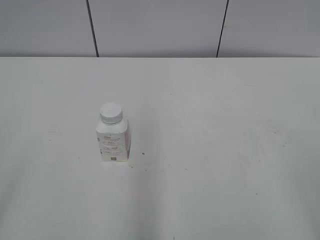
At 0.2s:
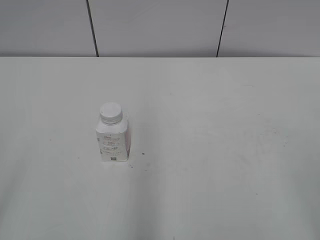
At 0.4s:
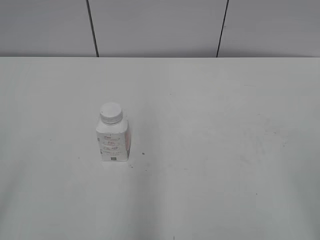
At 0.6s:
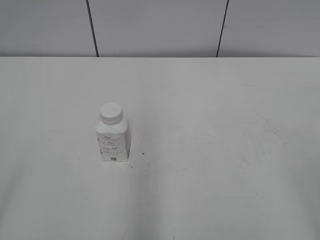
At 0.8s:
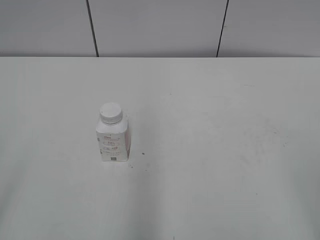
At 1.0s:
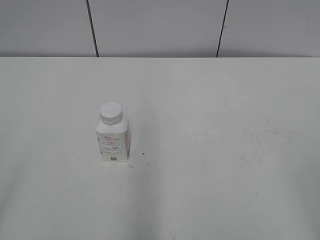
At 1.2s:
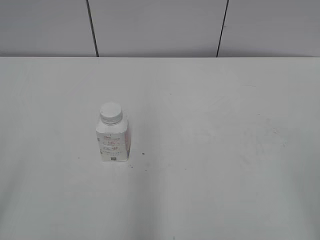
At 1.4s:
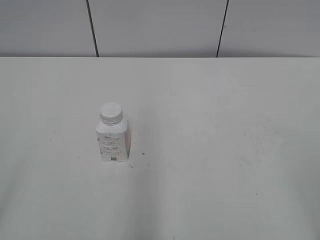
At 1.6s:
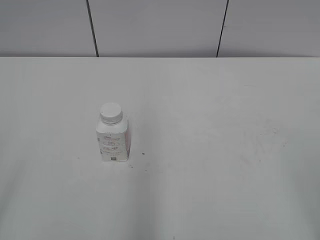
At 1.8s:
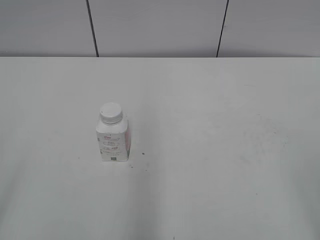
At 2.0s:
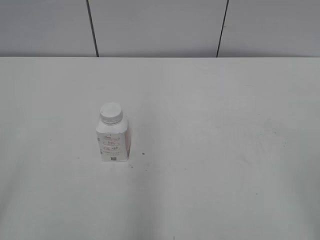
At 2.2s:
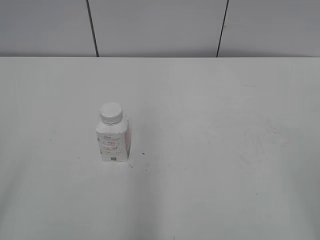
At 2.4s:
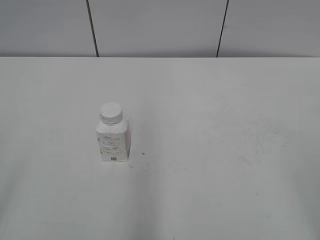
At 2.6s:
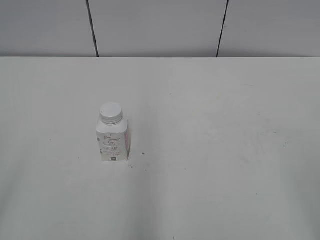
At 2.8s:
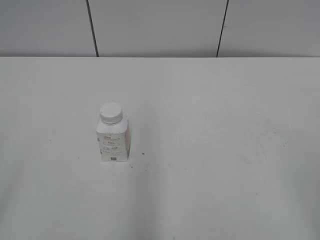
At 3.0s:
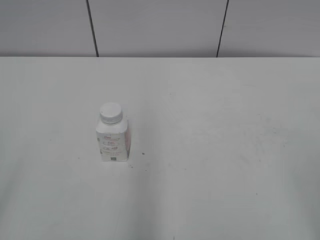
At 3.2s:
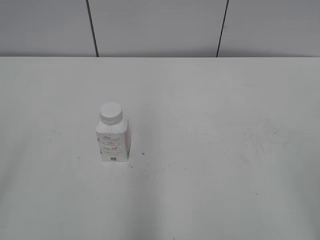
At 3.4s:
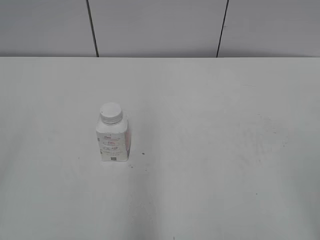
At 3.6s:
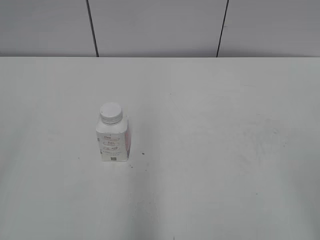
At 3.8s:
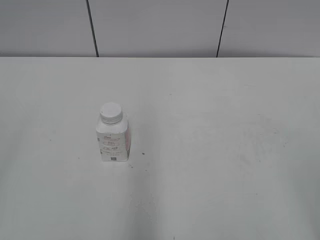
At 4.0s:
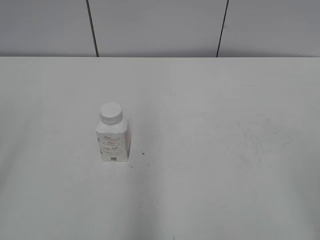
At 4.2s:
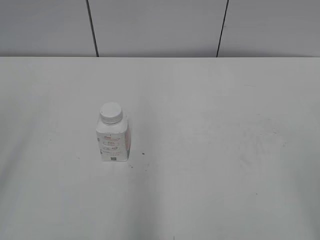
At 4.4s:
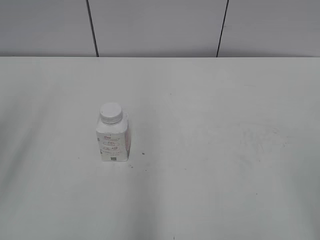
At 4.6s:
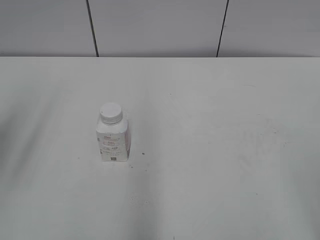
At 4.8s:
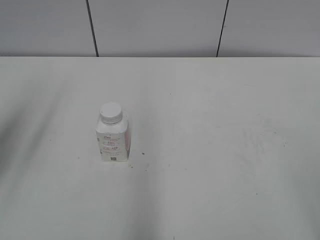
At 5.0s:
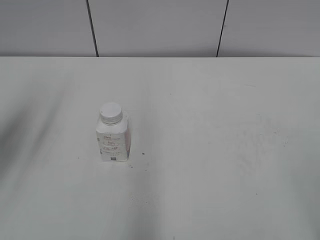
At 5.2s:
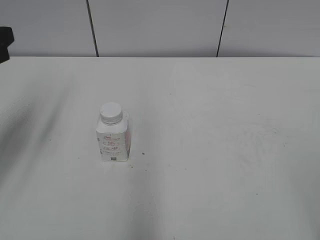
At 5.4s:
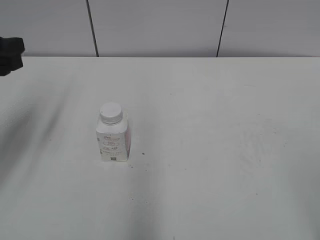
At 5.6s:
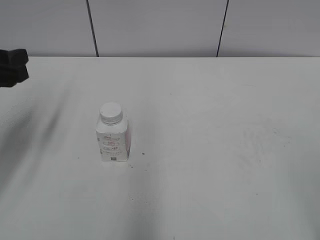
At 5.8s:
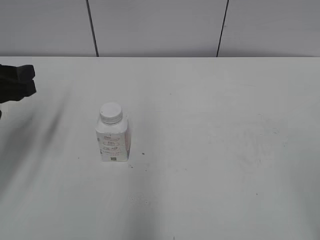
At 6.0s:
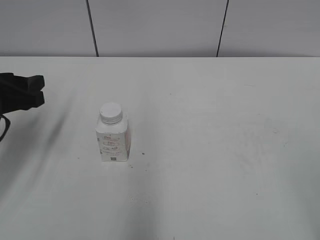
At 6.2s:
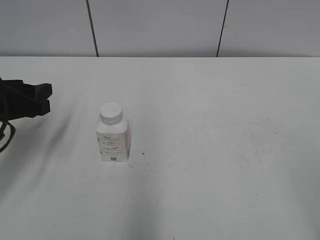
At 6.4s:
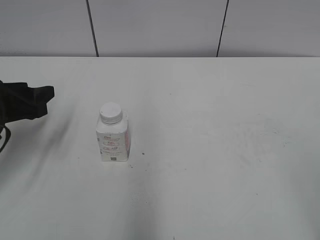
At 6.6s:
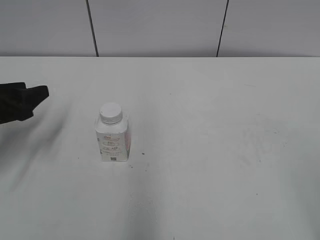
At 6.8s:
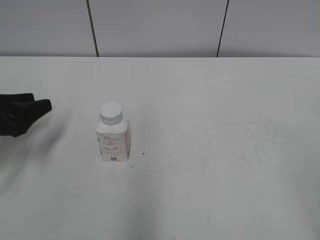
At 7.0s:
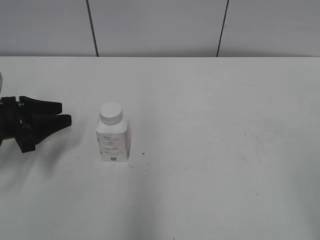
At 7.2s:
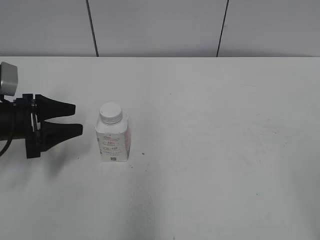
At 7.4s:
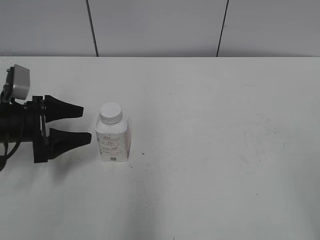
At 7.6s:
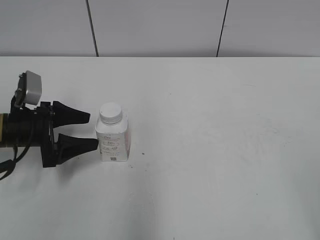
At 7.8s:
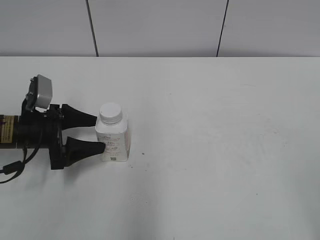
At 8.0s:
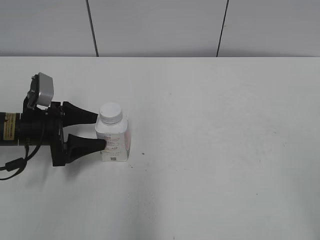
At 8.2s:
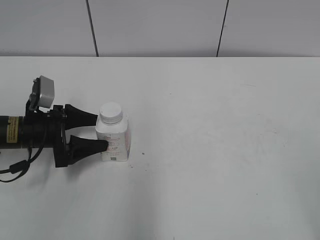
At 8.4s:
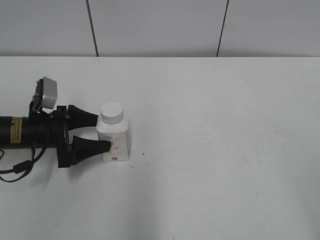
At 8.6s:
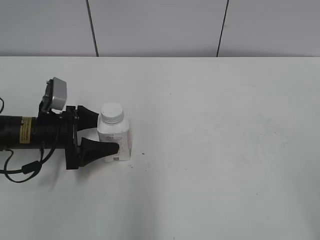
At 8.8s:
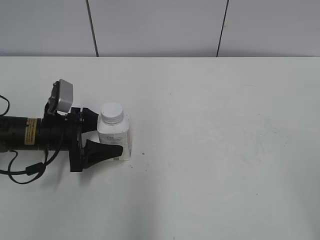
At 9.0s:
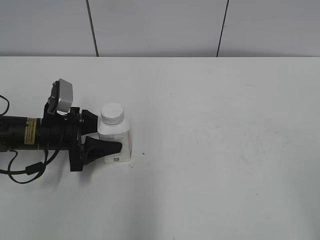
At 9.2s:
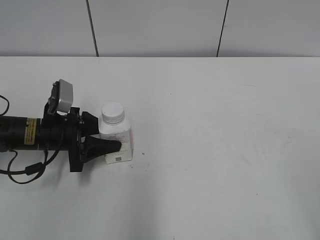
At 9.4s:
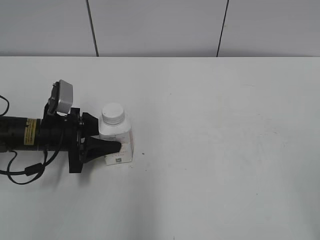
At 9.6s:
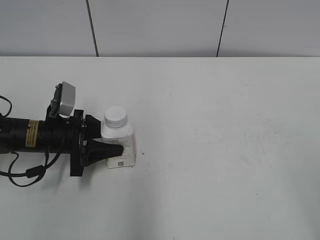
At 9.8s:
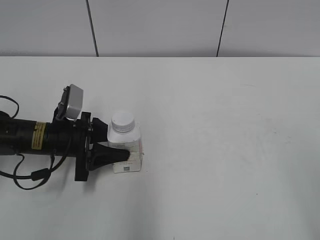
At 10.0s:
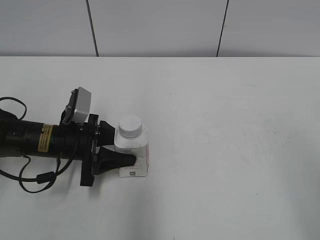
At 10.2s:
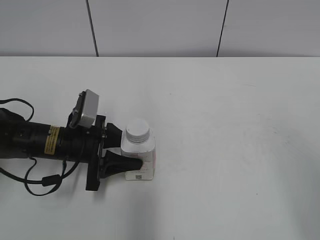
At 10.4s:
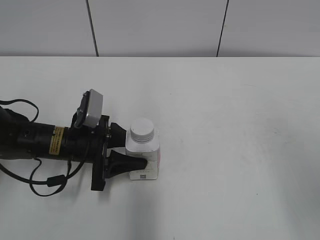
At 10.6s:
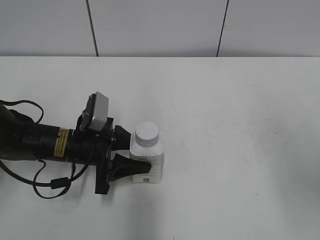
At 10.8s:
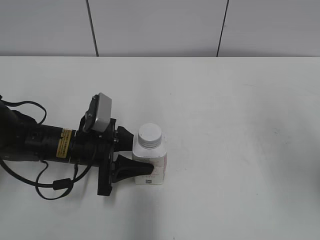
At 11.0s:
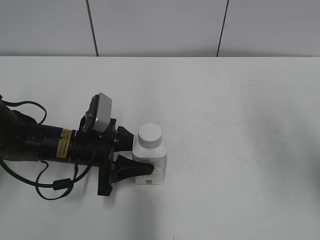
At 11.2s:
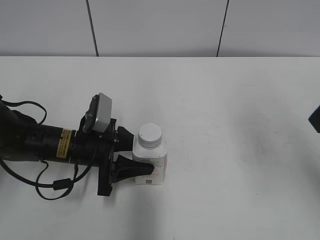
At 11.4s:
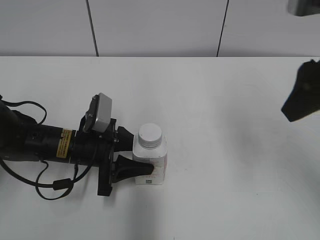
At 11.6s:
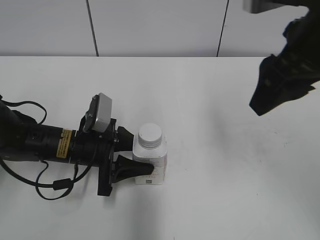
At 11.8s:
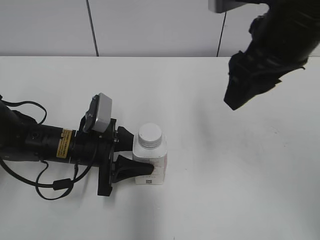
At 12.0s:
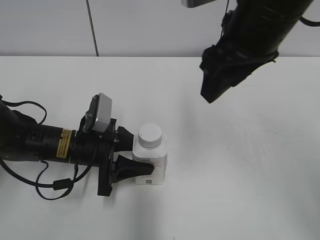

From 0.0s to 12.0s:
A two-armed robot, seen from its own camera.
Step, from 0.0s to 9.0s: Grab the Yili Changqing with the left hand.
Step, from 9.4s to 11.0s: Move the Yili Changqing from left to right.
From 1.6s to 3.0s: Both grippers stay put.
From 4.4s to 6.0s: The left gripper goes approximately 20 cm downward and forward.
From 6.0s to 7.6s: The left gripper goes some 10 cm downward, and opens its fingers.
From 7.6s to 9.0s: The left gripper moves some 5 cm, and closes its fingers.
From 9.0s to 10.4s: The left gripper moves to the right, about 5 cm, and closes, while the right gripper is displaced forward by approximately 10 cm.
From 10.4s to 12.0s: The right gripper travels forward and to the left by approximately 25 cm, and closes its fingers.

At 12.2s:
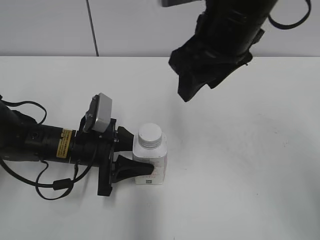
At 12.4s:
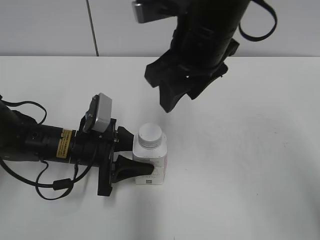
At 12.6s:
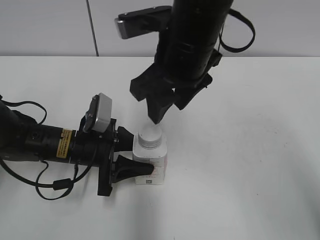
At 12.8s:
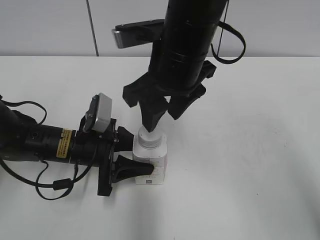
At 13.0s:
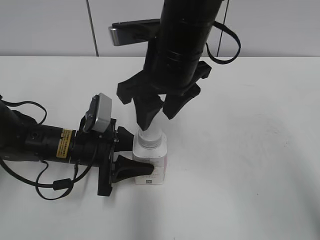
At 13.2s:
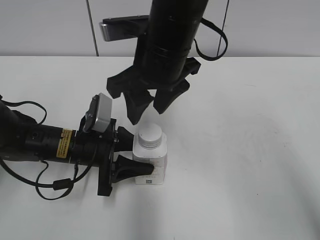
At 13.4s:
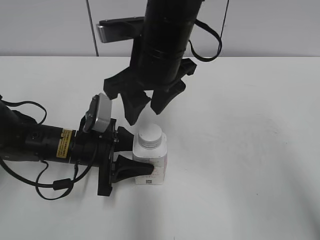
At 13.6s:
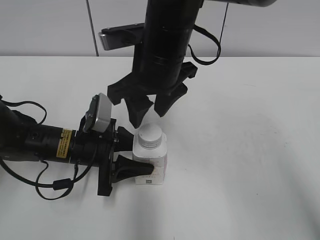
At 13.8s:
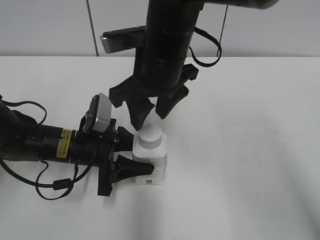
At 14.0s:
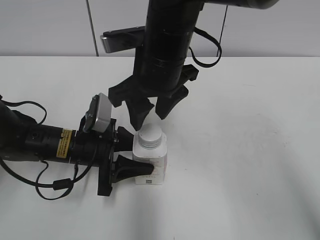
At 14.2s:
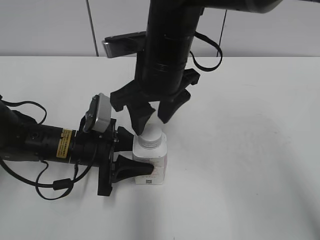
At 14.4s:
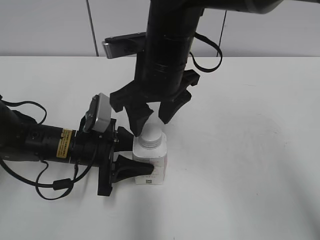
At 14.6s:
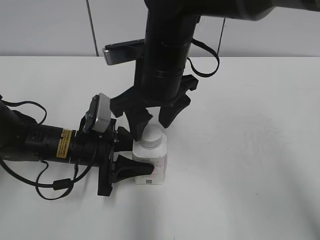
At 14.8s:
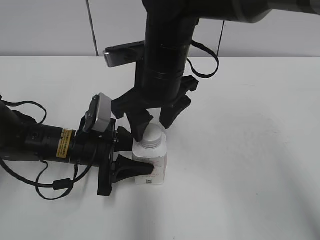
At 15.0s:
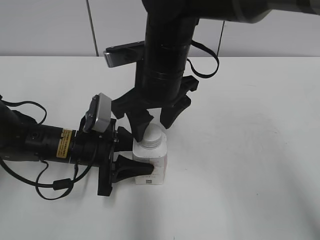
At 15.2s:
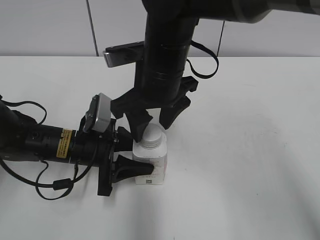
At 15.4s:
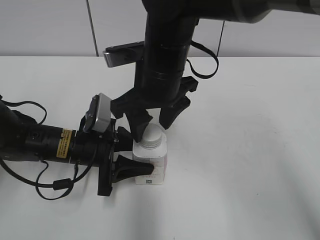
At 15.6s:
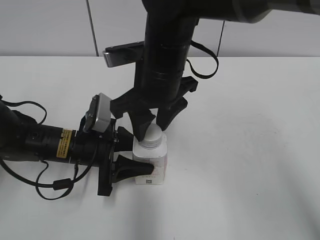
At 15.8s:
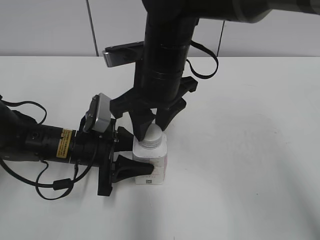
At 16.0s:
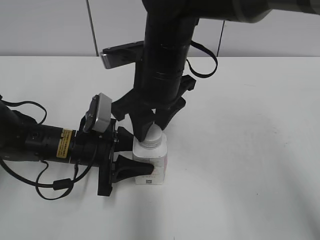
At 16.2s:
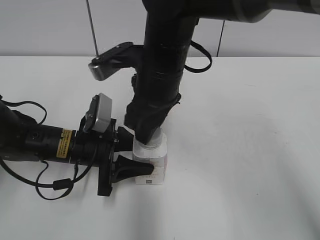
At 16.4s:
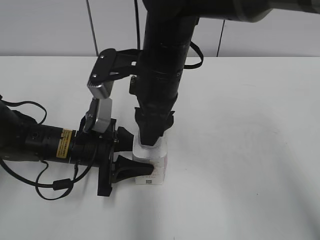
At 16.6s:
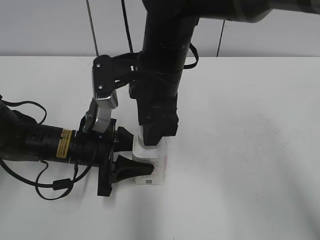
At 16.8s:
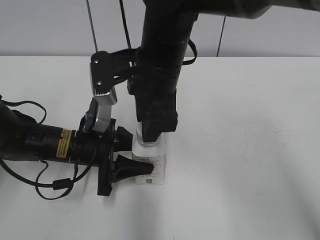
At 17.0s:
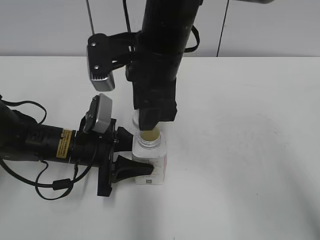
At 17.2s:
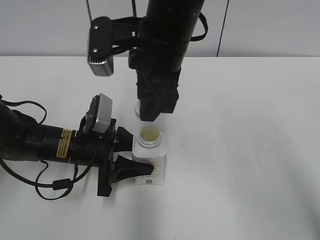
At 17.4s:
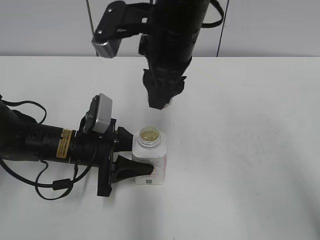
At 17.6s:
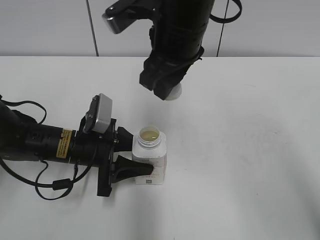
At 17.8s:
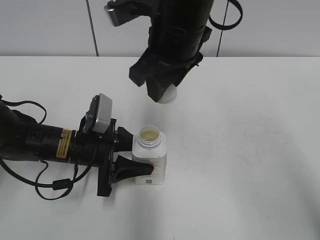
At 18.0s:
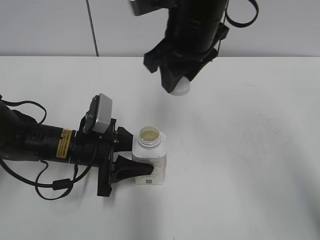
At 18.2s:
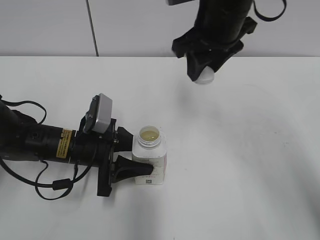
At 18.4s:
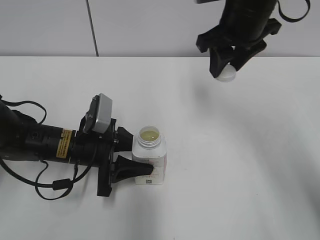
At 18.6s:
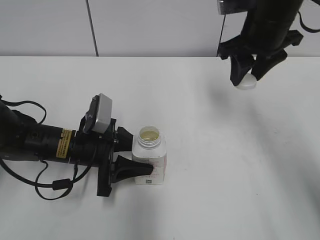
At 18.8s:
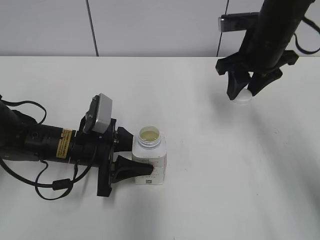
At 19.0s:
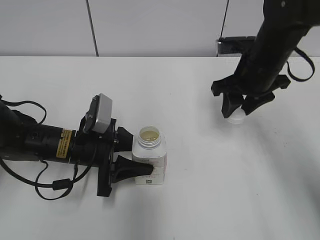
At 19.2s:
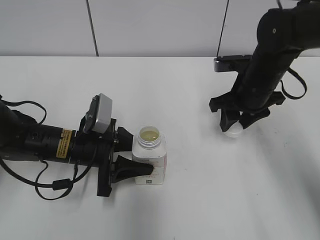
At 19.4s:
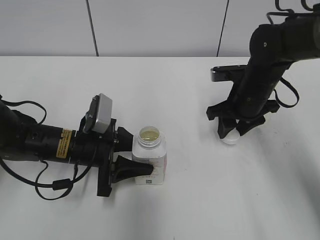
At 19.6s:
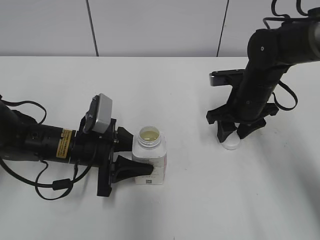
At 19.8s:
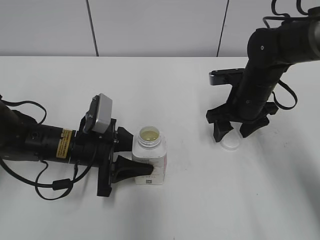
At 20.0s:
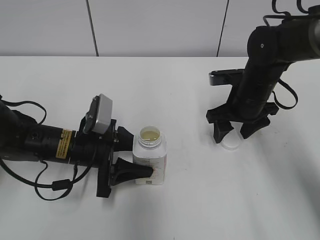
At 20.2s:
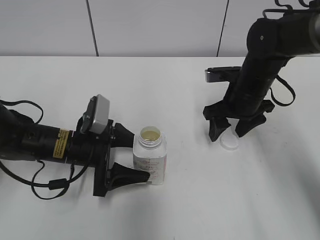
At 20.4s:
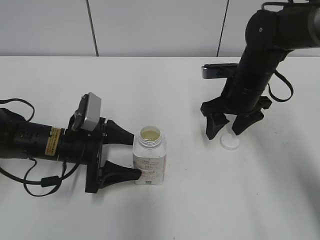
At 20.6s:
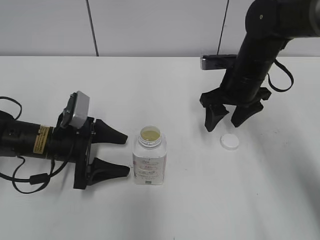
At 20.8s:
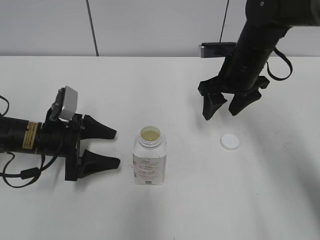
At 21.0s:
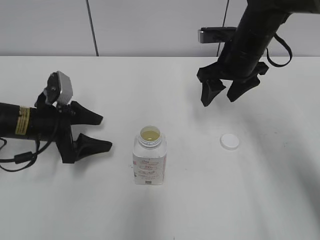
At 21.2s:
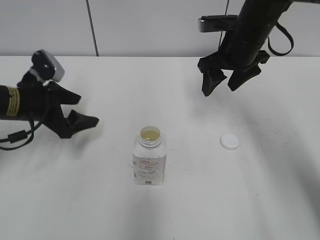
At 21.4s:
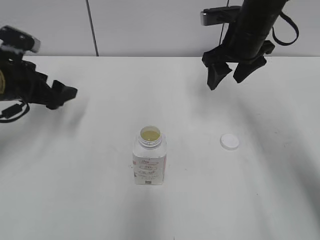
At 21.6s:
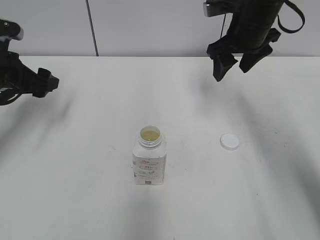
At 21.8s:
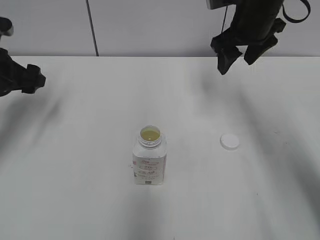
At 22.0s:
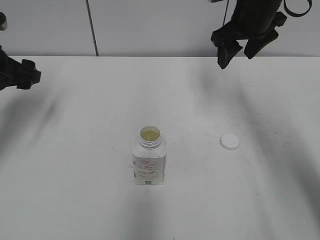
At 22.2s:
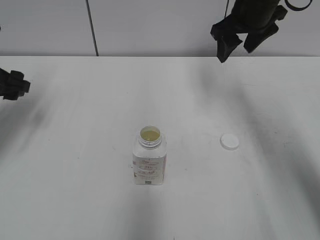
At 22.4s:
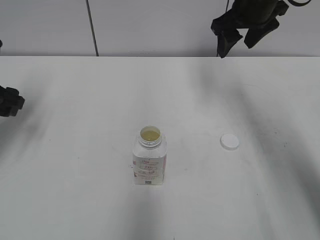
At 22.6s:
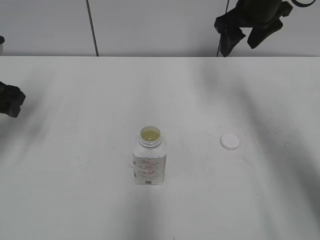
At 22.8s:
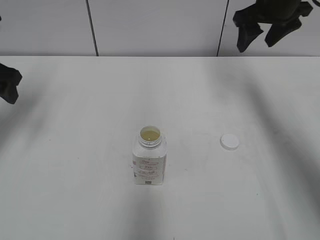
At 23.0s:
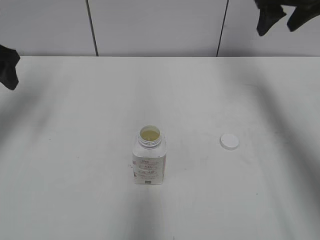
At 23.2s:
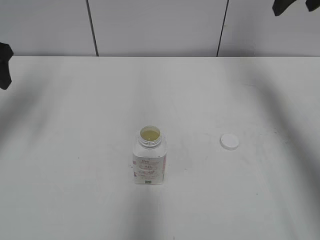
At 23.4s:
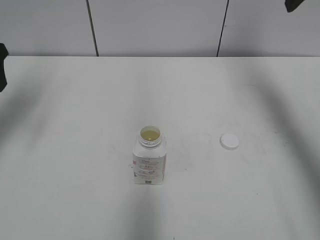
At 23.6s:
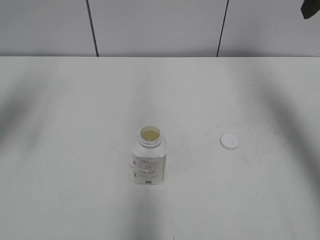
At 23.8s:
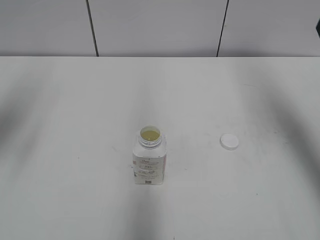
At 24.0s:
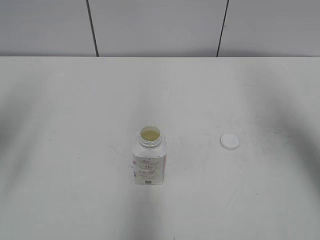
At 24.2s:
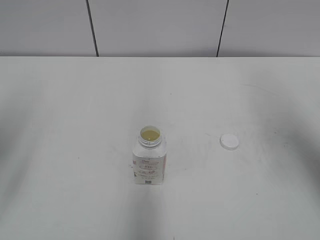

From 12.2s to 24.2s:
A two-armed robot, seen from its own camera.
Step, from 17.0s to 19.6s: Place the bottle cap on the right.
From 12.2s to 13.8s: The right gripper shifts approximately 10 cm to the left and downward.
From 13.8s to 15.2s: The grippers move only a little.
From 15.2s to 16.6s: The right gripper closes up.
From 16.6s to 18.2s: The right gripper heads to the right, upward and forward, covering about 10 cm.
From 18.2s to 19.8s: The right gripper heads downward and to the right, covering about 20 cm, and opens.
From 19.8s to 21.2s: The right gripper moves upward, about 10 cm. Meanwhile the left gripper shifts approximately 10 cm to the left and upward, and opens up.
From 21.2s to 22.6s: The left gripper moves to the left and upward, approximately 10 cm. The right gripper shifts about 5 cm upward.
From 22.6s to 24.2s: The right gripper travels backward and to the right by about 25 cm. The left gripper shifts roughly 15 cm backward and upward.
